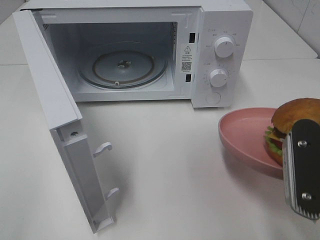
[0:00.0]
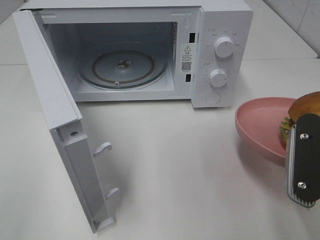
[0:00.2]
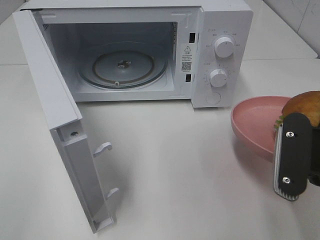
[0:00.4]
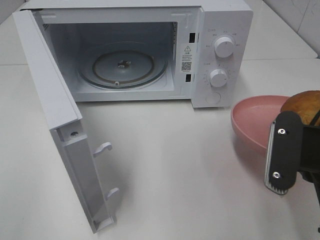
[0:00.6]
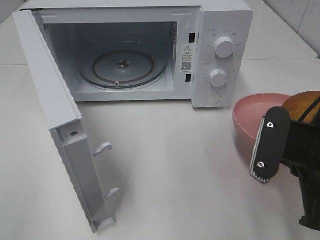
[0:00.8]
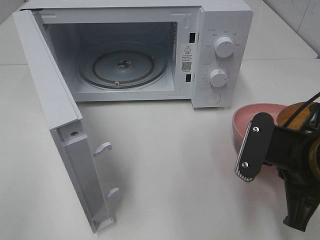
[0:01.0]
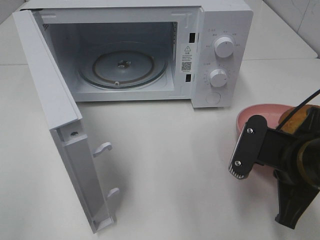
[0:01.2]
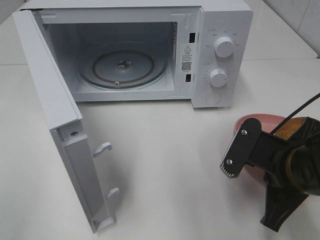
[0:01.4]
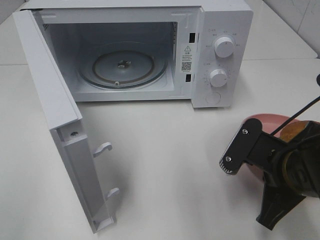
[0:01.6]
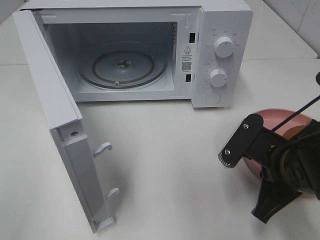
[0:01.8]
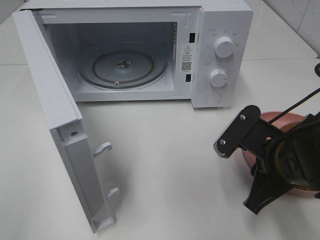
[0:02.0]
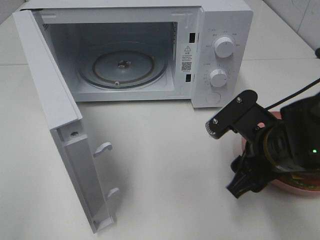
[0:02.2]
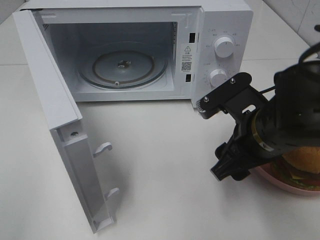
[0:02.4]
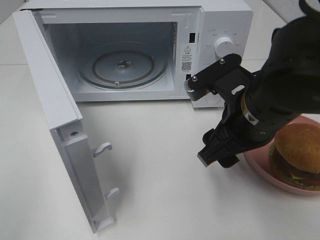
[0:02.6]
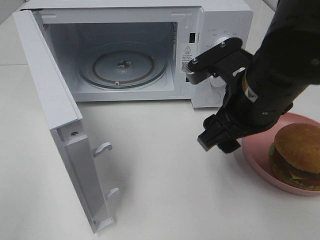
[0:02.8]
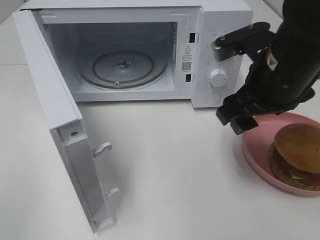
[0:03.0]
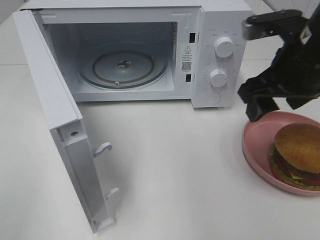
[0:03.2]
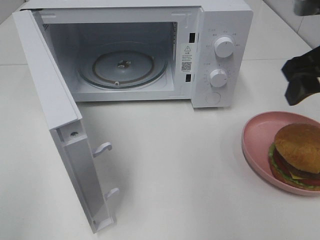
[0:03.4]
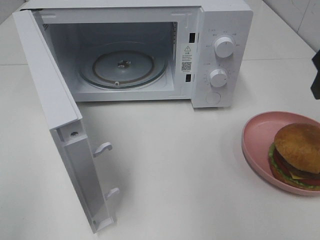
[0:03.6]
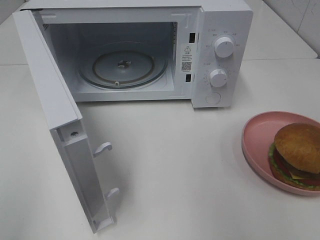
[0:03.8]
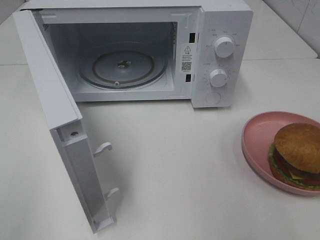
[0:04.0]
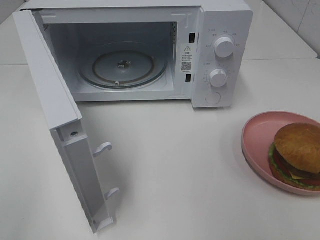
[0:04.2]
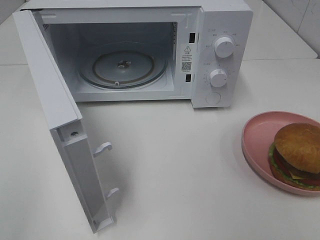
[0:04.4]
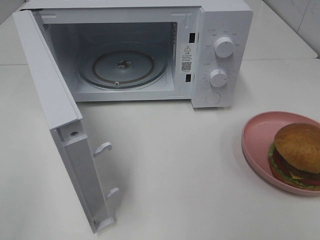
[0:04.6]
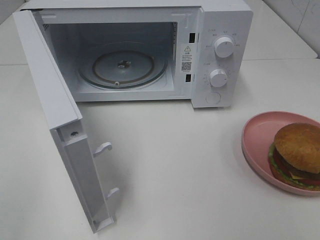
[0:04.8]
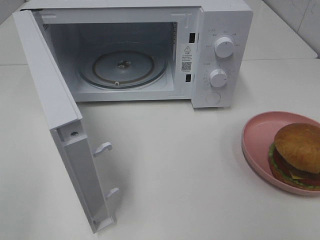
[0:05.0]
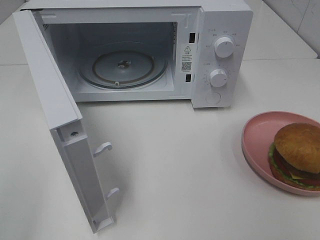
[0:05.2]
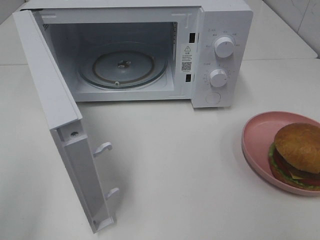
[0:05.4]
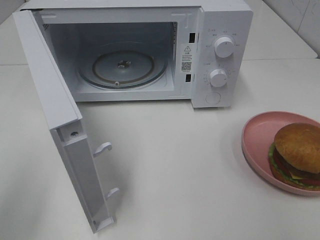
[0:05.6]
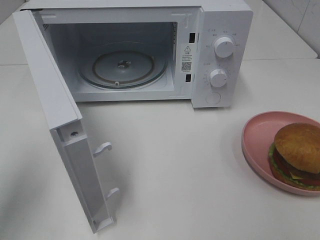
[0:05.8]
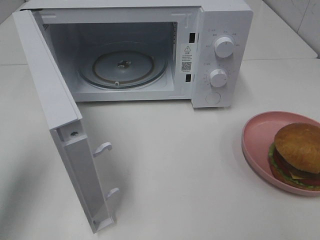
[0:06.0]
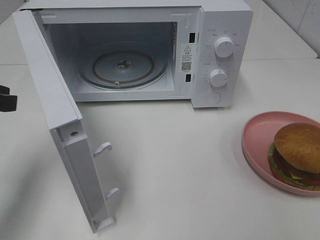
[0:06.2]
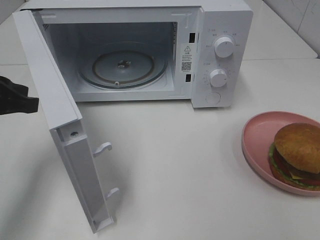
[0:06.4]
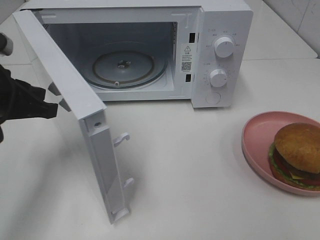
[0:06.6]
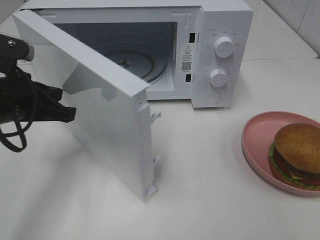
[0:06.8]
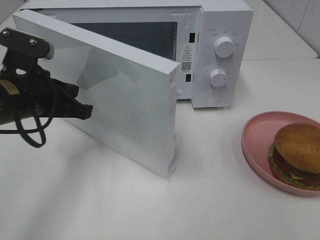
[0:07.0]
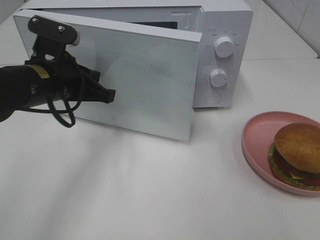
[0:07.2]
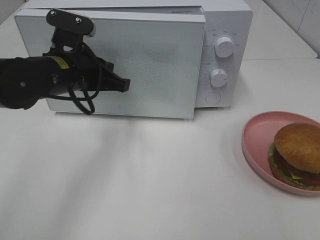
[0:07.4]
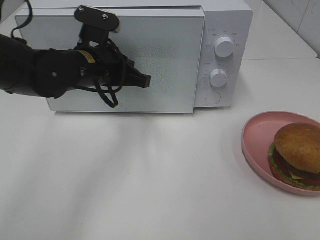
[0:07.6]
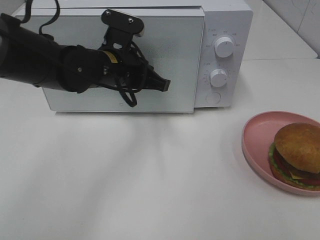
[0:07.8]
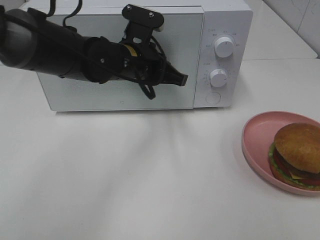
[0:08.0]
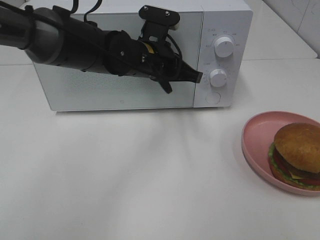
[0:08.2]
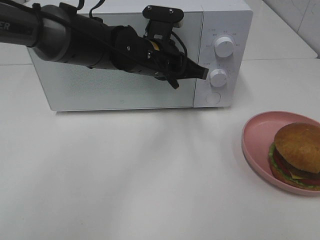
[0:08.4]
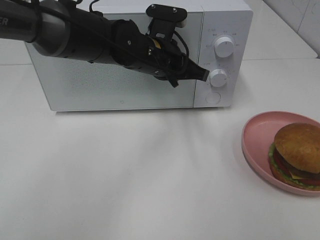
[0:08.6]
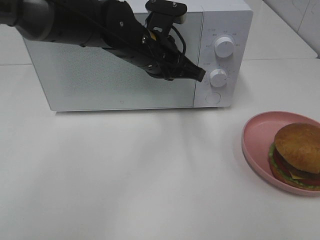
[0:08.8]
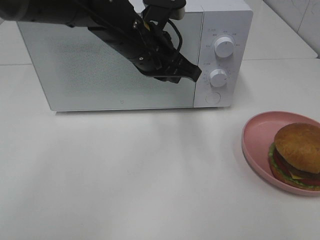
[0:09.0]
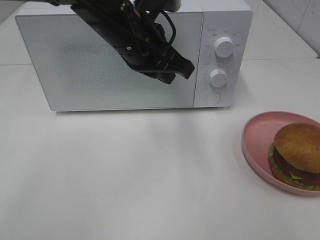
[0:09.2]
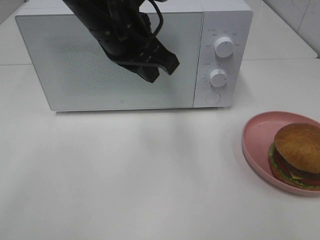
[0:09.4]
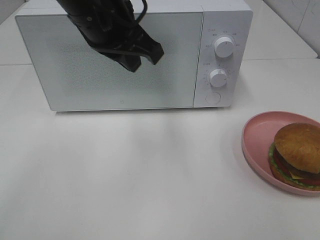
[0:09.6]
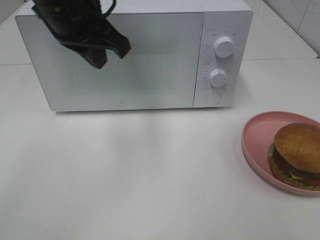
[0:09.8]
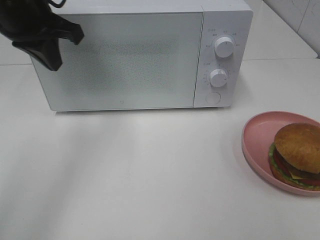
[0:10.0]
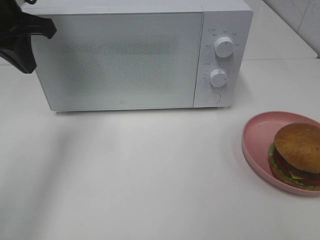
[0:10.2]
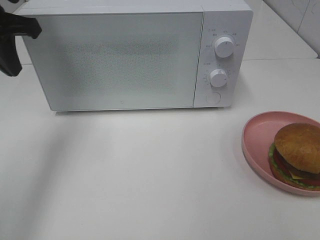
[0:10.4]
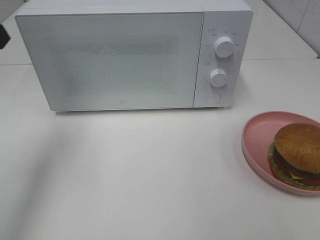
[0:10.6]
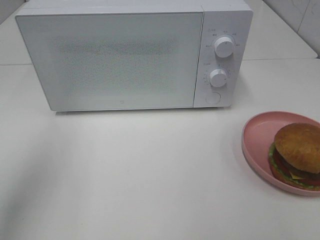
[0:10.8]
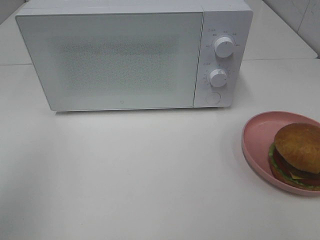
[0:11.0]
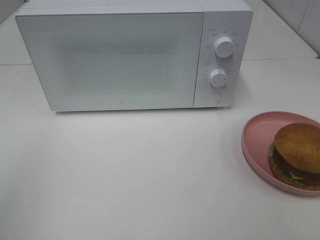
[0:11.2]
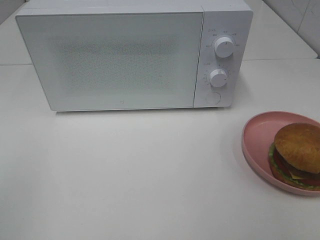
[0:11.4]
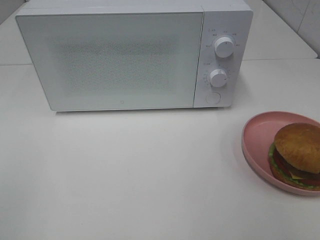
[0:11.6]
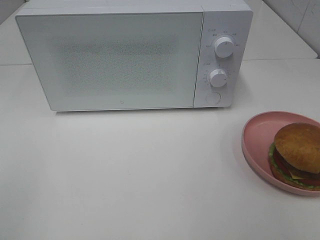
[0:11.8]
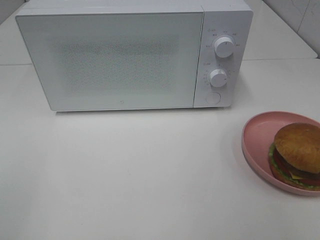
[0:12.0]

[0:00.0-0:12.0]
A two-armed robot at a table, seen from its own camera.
Task of the whole recording: Heat the burger.
Step, 0:02.0 to 0:08.0: Left hand: close the microwave door.
0:00.0 to 0:01.6: The right gripper is displaced downward by some 10 cm.
0:01.6 to 0:03.0: The right gripper goes about 15 cm upward and forward, and opens up.
0:03.0 to 0:04.4: The right gripper shifts some 25 cm backward and to the right.
0:04.4 to 0:06.0: The left gripper heads forward, covering some 20 cm.
0:06.0 to 0:07.6: The left gripper moves to the right and forward, roughly 20 cm.
0:07.6 to 0:09.0: The left gripper shifts approximately 10 cm to the right and upward.
0:09.0 to 0:10.4: The left gripper goes some 20 cm to the left.
0:10.4 to 0:12.0: The left gripper moves backward, approximately 30 cm.

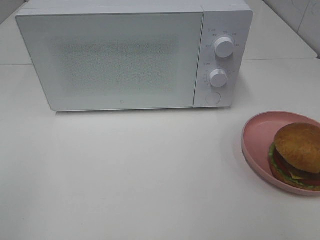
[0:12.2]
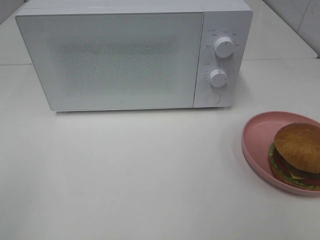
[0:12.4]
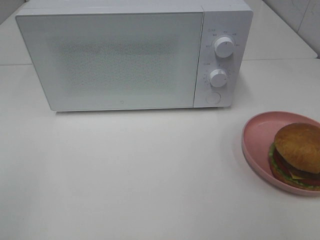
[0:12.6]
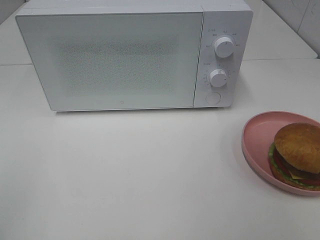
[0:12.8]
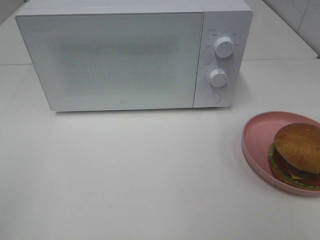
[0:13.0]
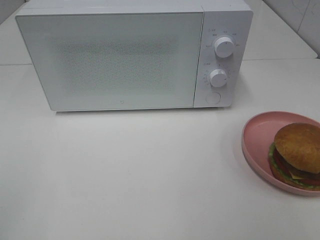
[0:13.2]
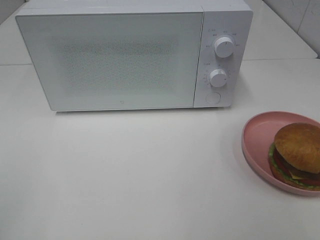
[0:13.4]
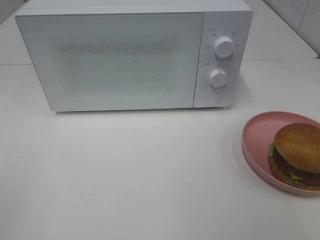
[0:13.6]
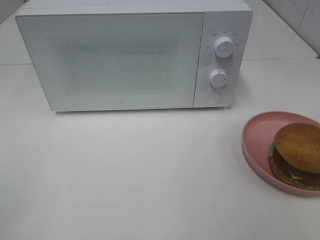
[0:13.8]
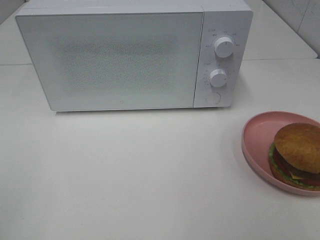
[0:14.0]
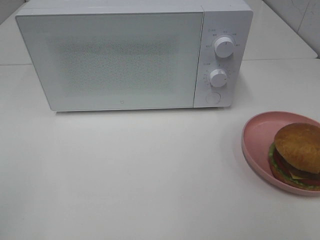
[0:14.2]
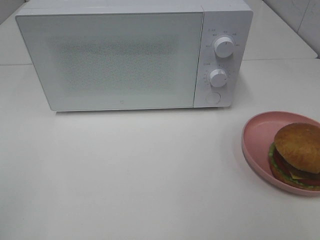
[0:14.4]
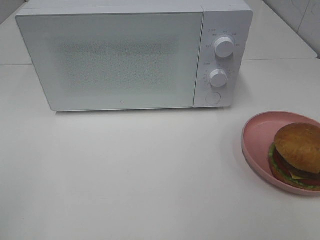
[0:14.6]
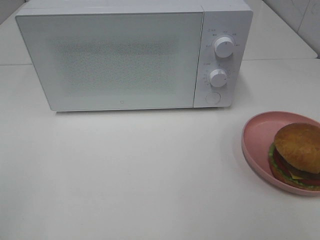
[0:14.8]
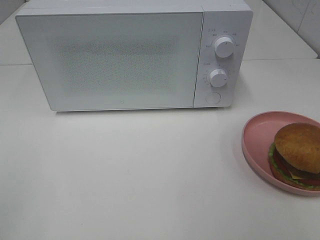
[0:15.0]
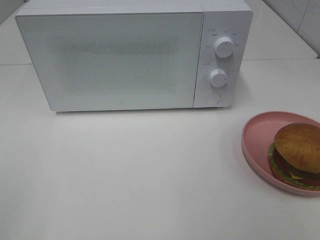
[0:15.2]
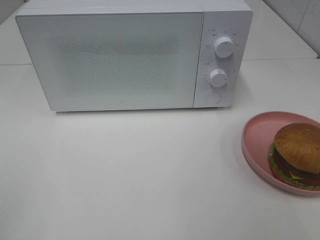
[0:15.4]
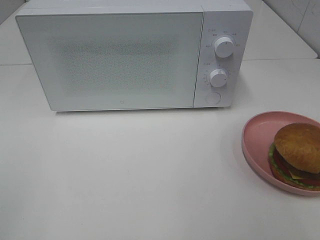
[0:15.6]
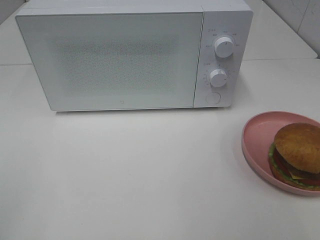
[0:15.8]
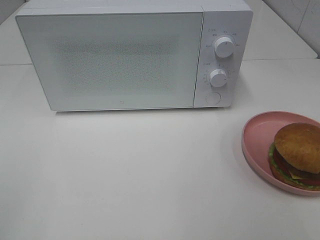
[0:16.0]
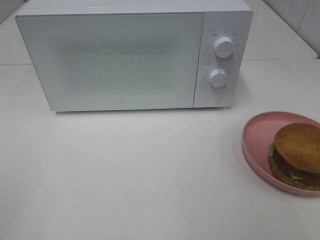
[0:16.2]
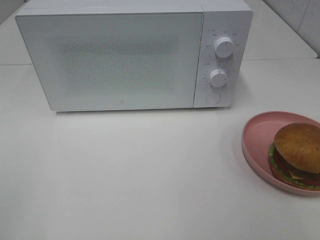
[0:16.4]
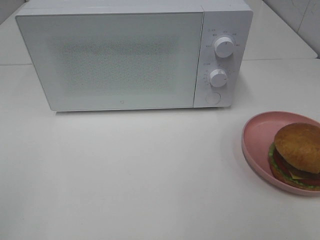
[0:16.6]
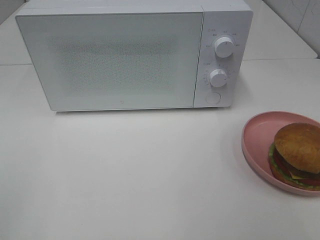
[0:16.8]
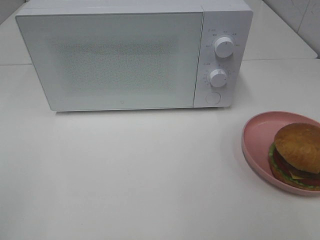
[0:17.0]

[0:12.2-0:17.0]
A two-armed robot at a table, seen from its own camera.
Task of the whole recording: Heat the burger.
0:13.8 to 0:17.0: Neither gripper changes place.
